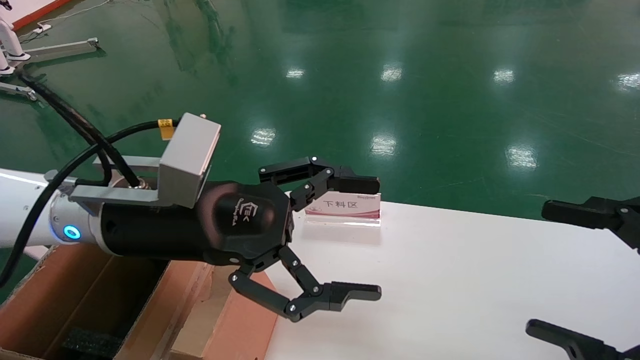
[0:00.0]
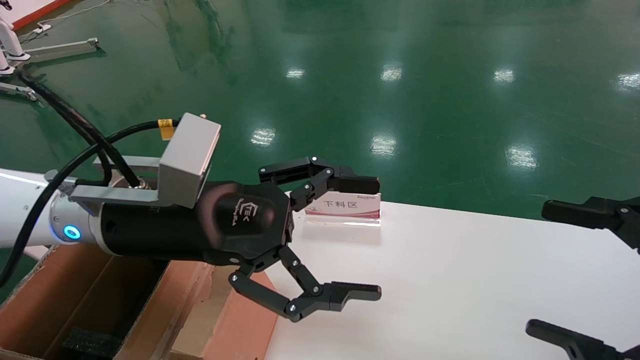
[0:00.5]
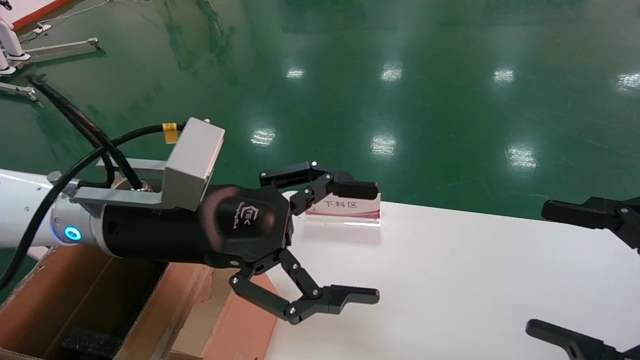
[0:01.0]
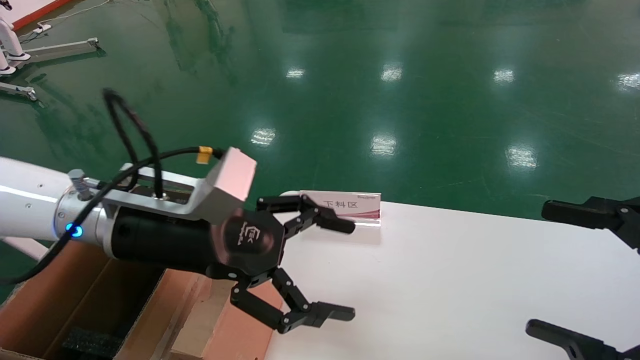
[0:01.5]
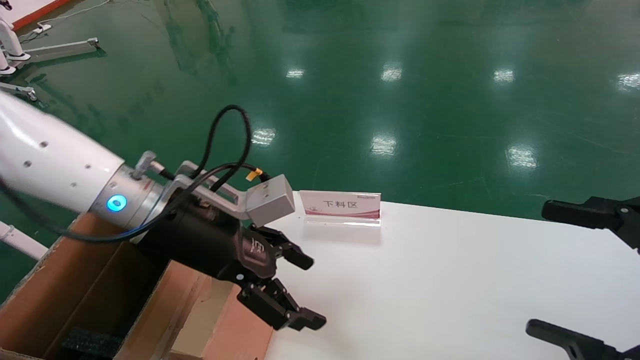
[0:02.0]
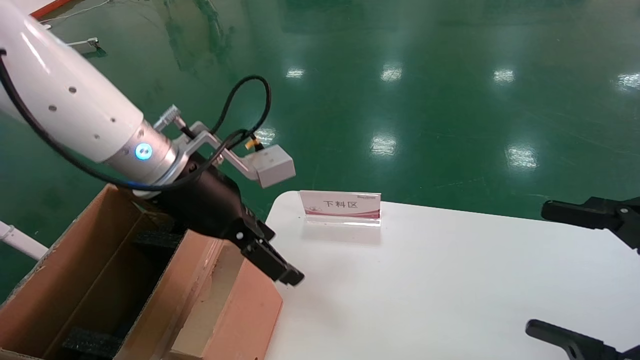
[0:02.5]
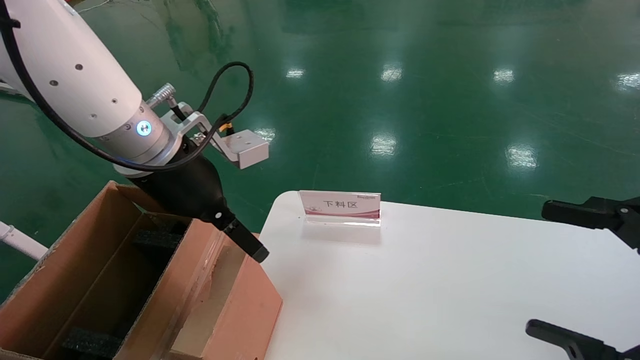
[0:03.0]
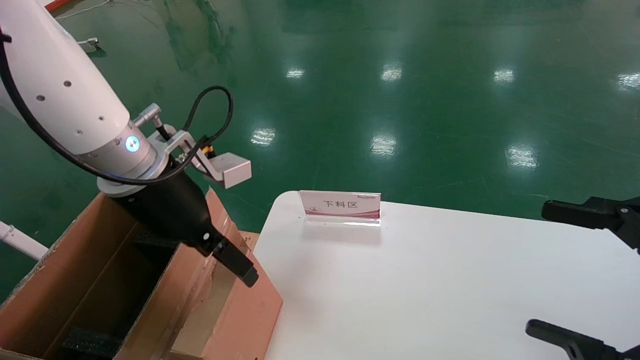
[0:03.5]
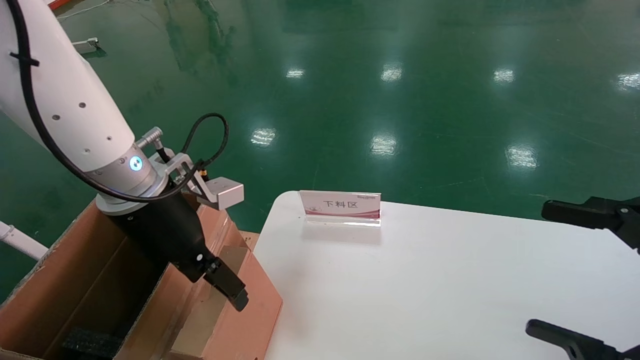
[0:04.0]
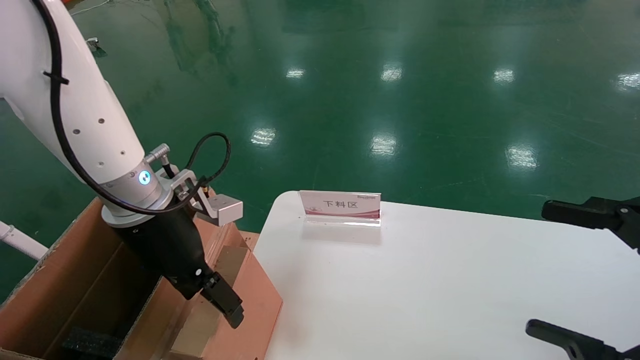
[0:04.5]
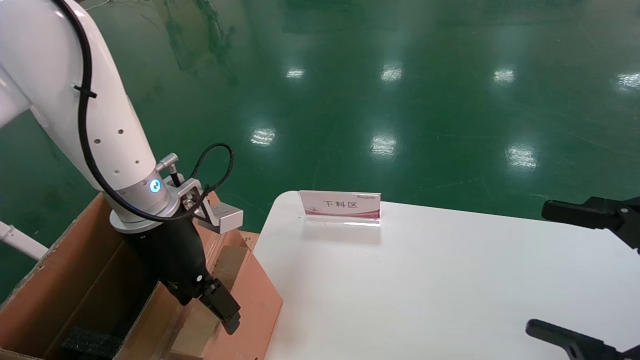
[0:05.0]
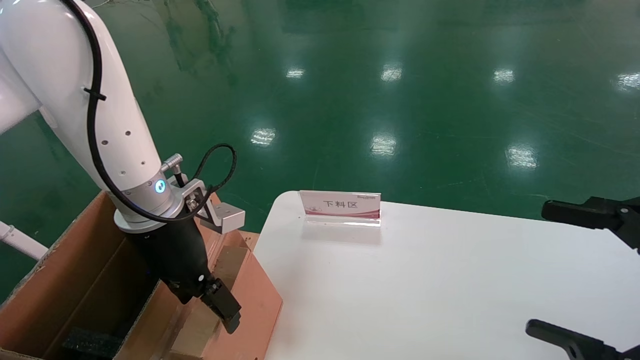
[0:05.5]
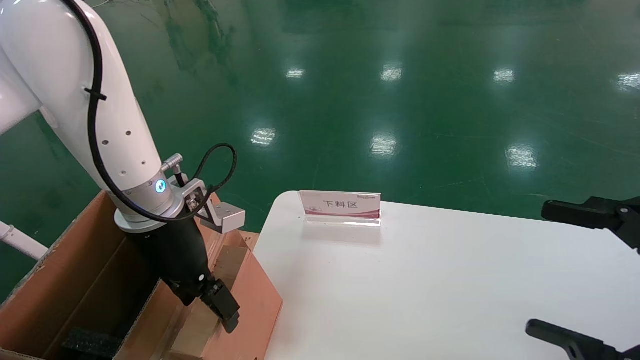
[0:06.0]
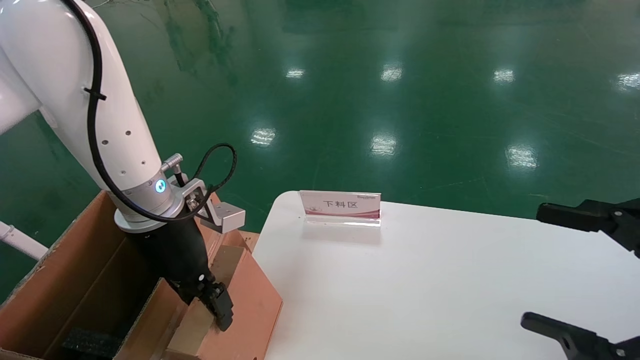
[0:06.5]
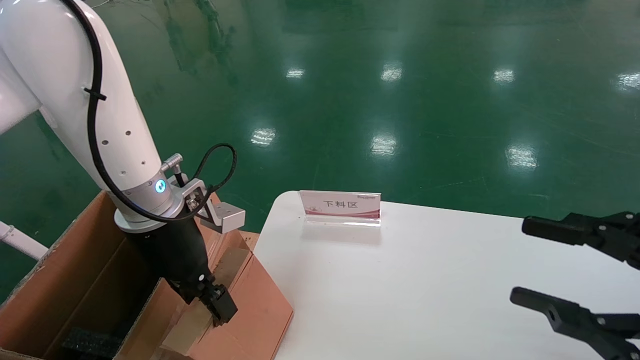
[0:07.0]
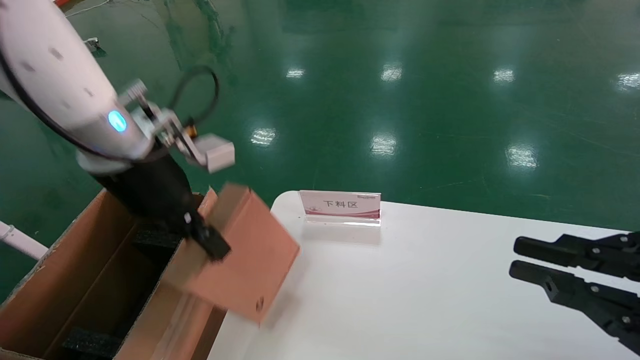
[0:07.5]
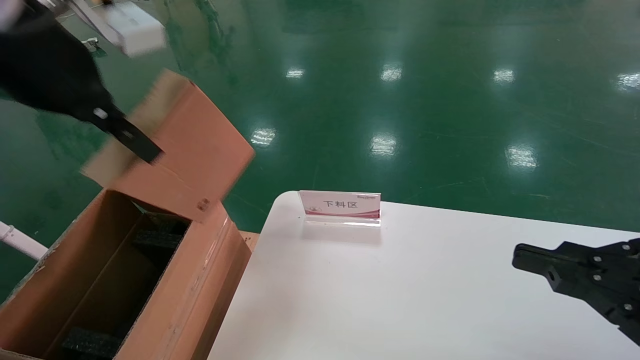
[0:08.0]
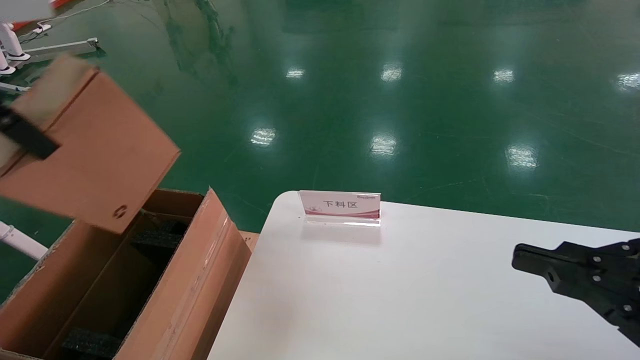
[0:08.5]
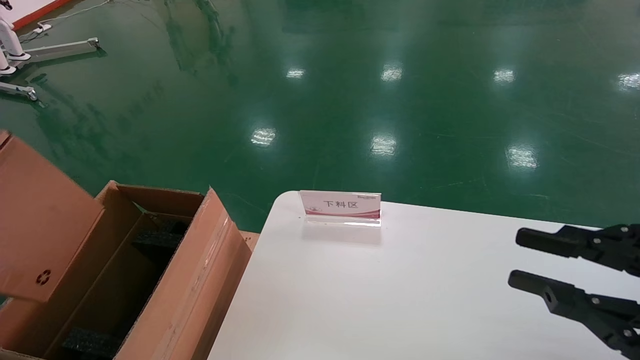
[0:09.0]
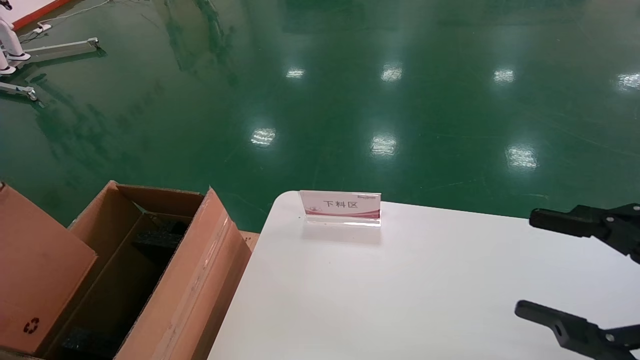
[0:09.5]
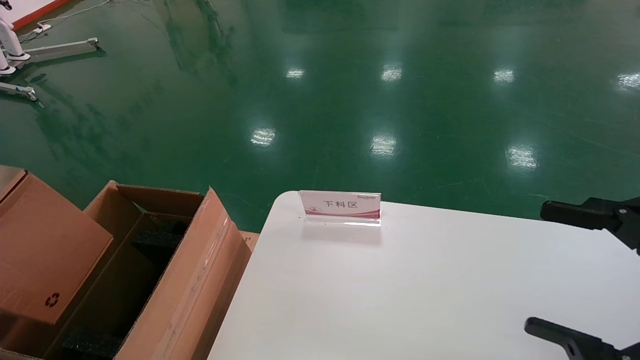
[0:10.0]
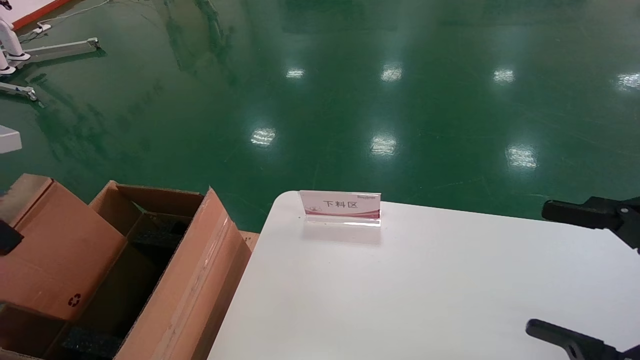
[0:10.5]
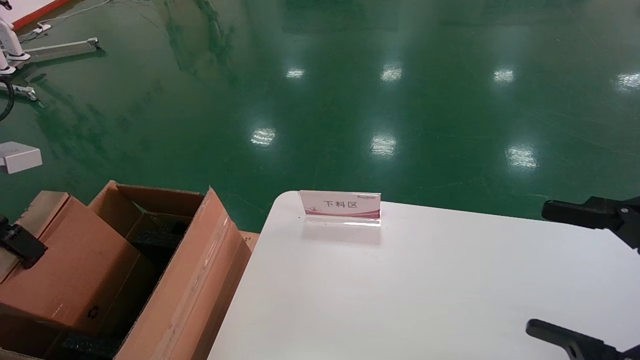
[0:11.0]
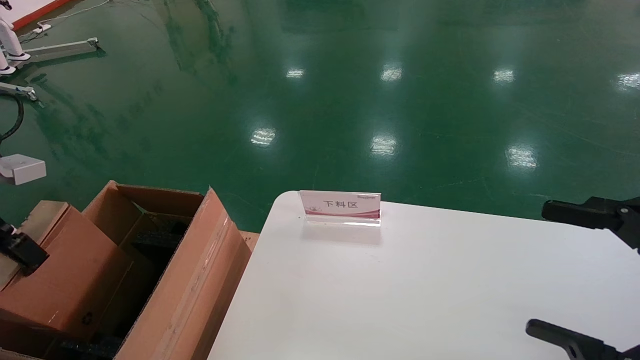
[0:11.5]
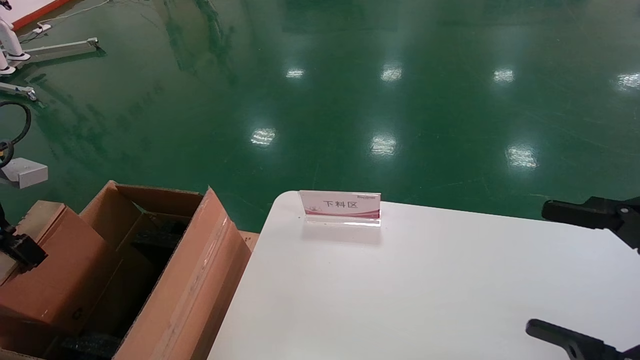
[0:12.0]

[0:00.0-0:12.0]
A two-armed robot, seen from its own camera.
Task of the whole recording: pick up the small cardboard box and load it into the large cardboard box.
Step, 0:00.0 to 0:06.5: Grasp the paper box.
0:04.0 to 0:06.0: The grippers move only a little.
0:06.0 to 0:08.0: The right gripper closes up, while the left gripper goes some 20 cm upward, and closes up.
0:08.0 to 0:10.0: The right gripper opens up, while the left gripper is displaced to the left by about 20 cm.
0:10.0 to 0:12.0: The left gripper is displaced downward and forward by some 10 cm.

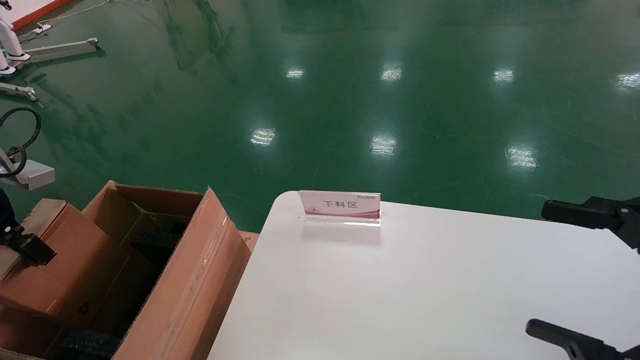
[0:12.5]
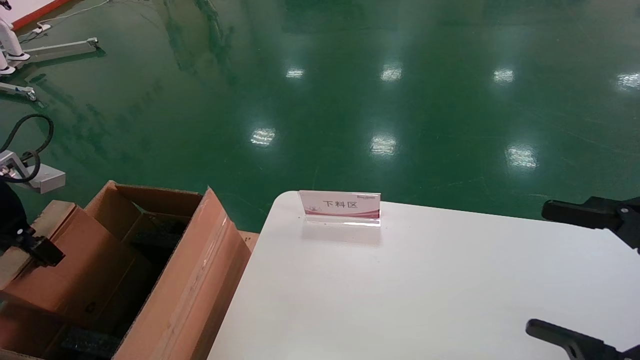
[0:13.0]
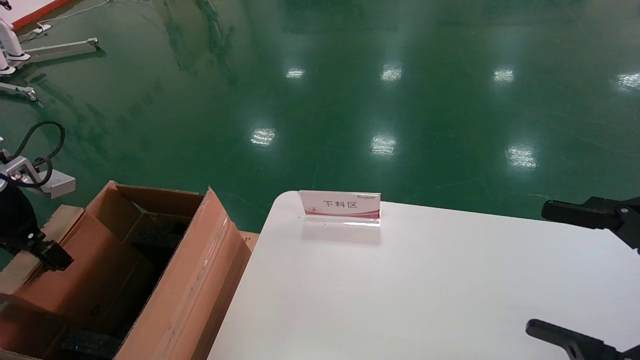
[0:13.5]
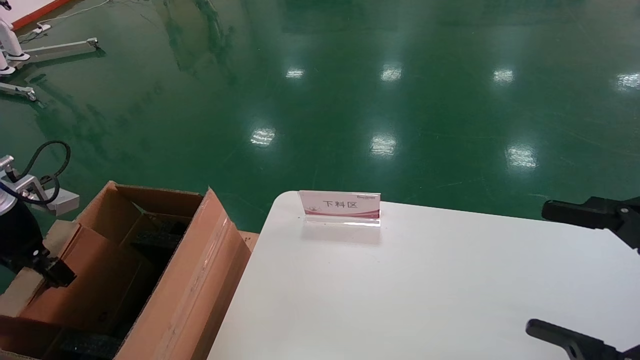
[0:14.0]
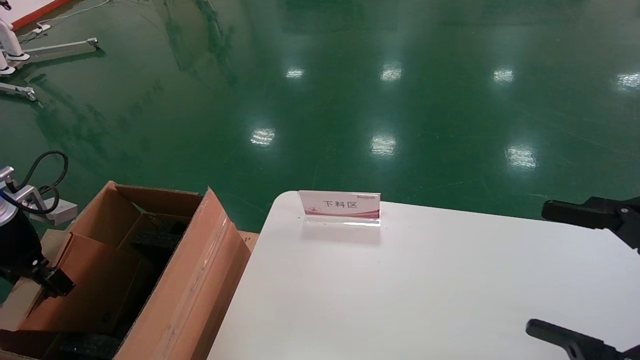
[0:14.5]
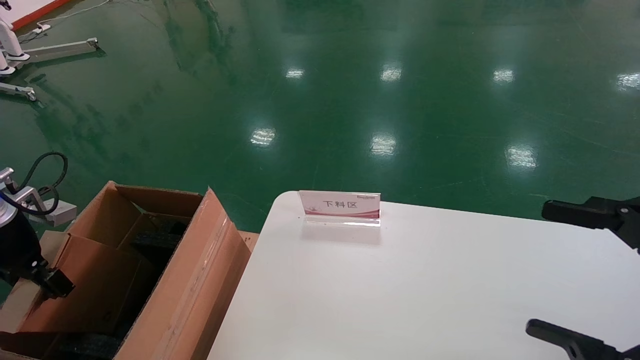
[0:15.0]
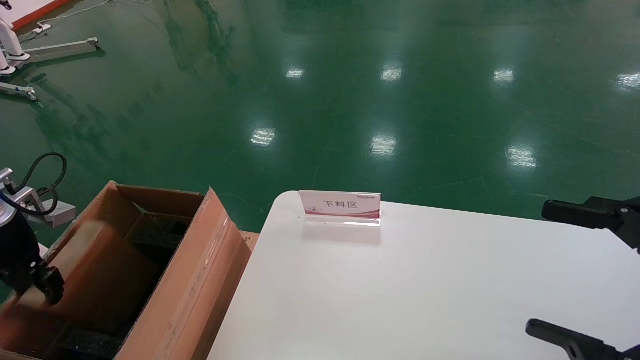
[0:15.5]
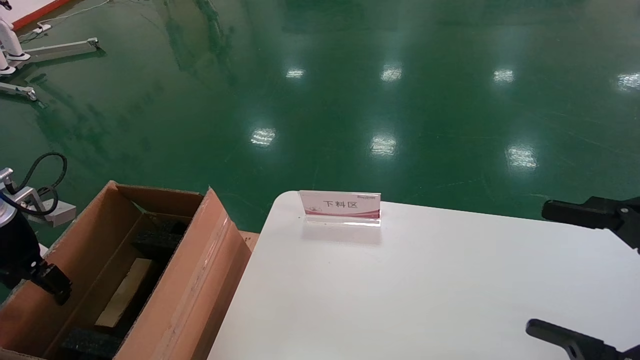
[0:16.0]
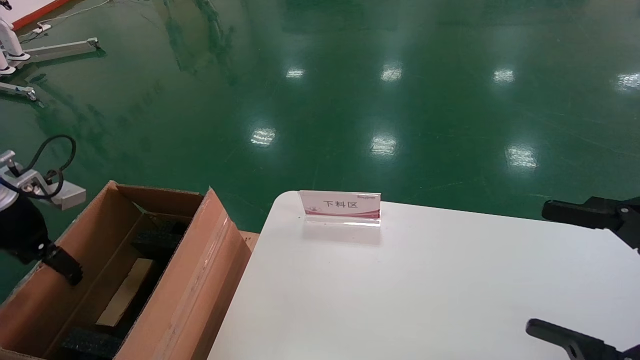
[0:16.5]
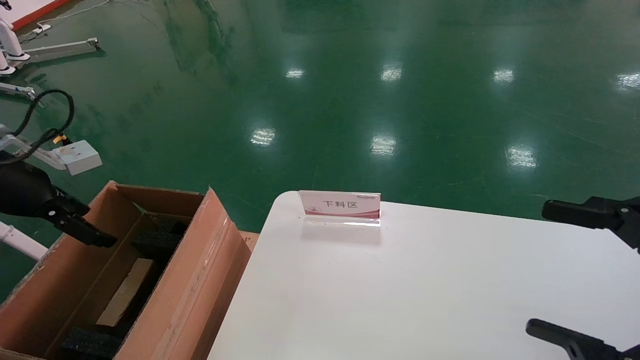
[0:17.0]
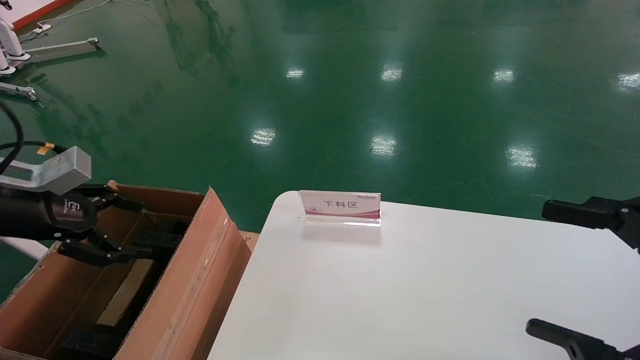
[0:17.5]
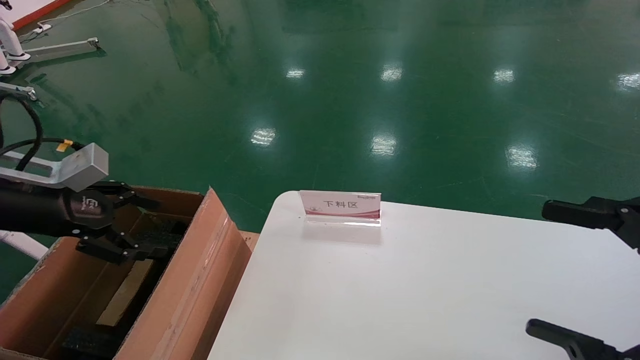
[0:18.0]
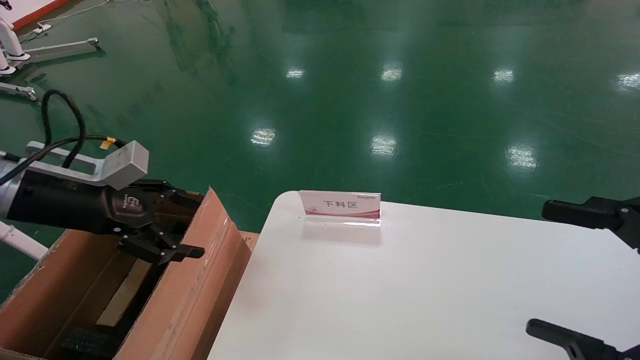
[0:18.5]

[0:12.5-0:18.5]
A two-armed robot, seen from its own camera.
Task of the whole recording: pick up the small cardboard box and load it into the large cardboard box.
Step, 0:12.5 to 0:16.0: Place the paper box in the another big box.
0:12.5 to 0:14.5: The left gripper heads downward, covering some 5 cm.
0:14.5 to 0:16.5: The left gripper opens its fingers.
0:16.5 to 0:18.5: The left gripper heads to the right, covering roughly 10 cm.
